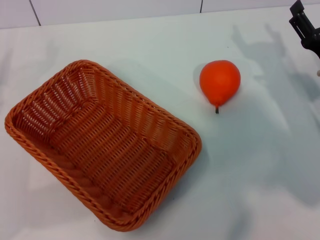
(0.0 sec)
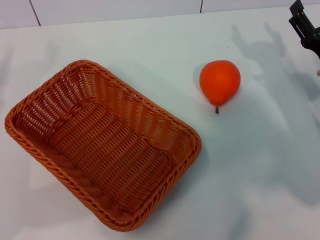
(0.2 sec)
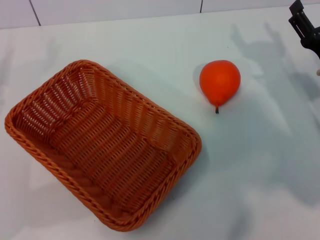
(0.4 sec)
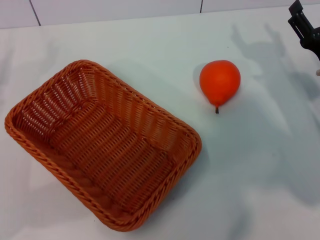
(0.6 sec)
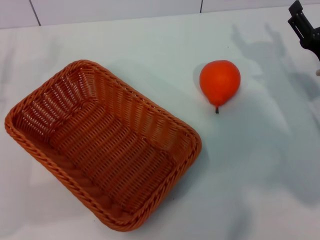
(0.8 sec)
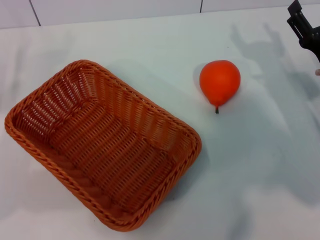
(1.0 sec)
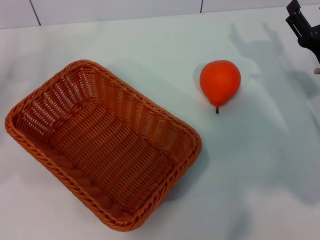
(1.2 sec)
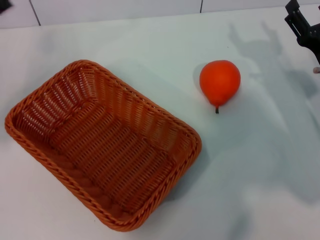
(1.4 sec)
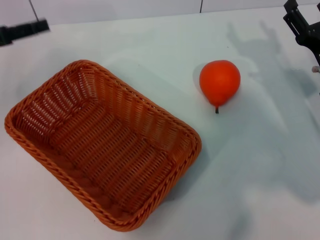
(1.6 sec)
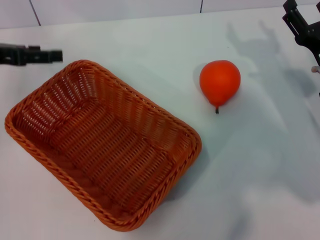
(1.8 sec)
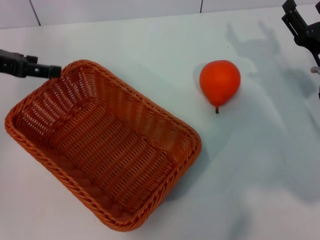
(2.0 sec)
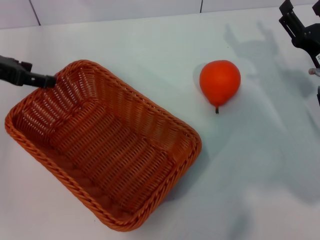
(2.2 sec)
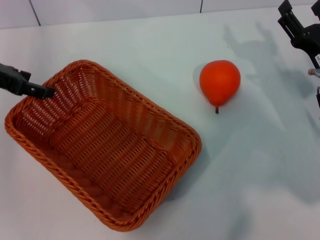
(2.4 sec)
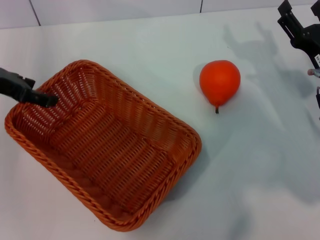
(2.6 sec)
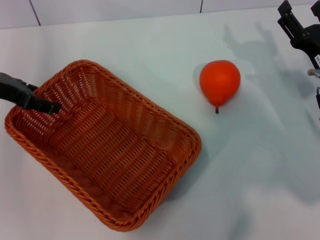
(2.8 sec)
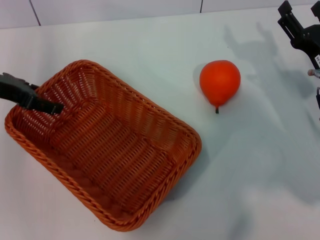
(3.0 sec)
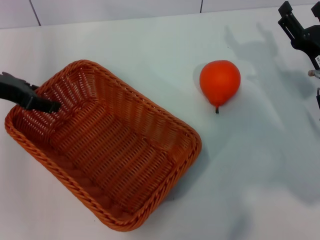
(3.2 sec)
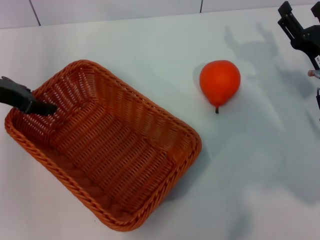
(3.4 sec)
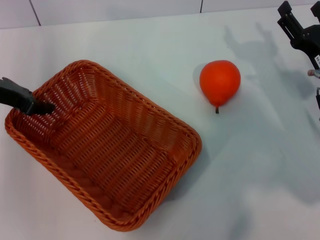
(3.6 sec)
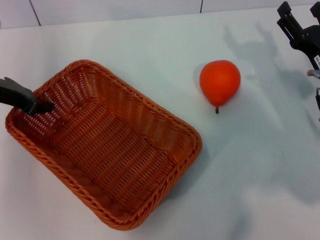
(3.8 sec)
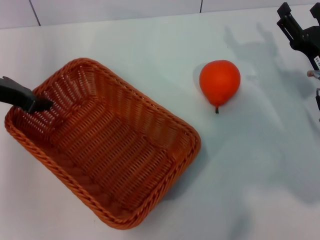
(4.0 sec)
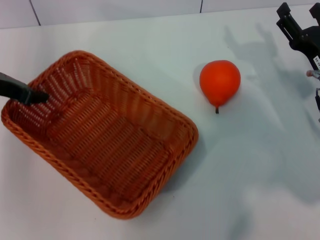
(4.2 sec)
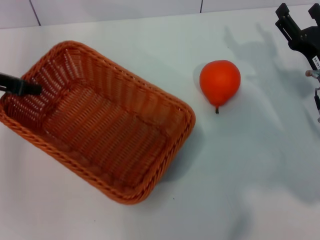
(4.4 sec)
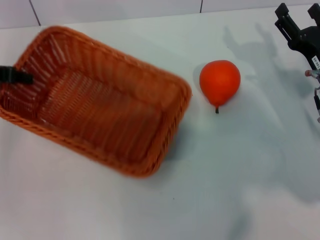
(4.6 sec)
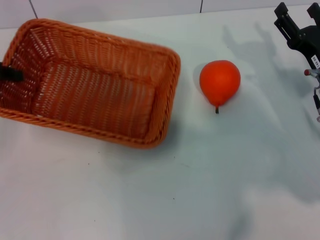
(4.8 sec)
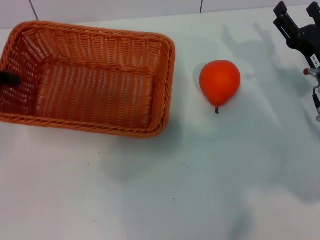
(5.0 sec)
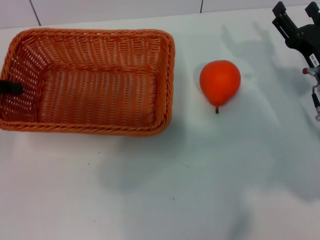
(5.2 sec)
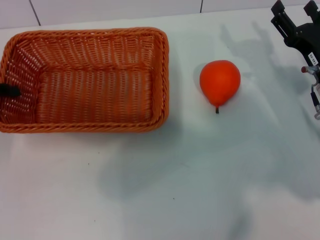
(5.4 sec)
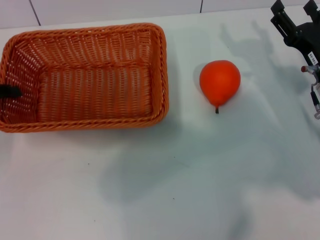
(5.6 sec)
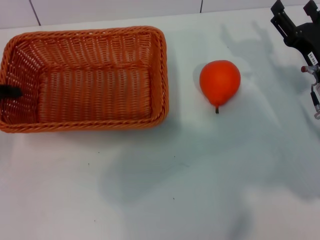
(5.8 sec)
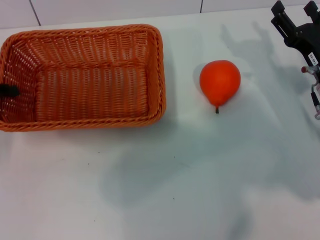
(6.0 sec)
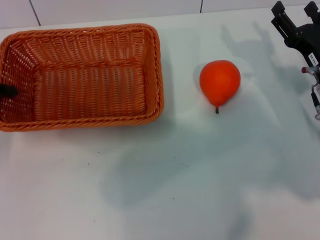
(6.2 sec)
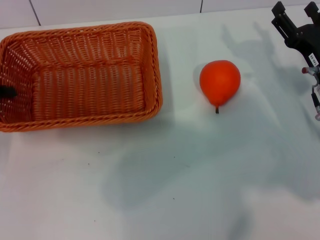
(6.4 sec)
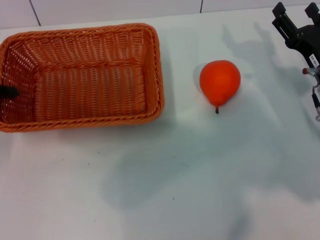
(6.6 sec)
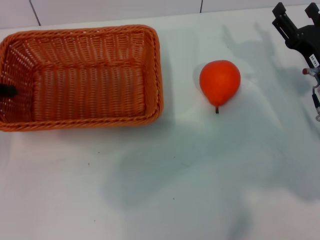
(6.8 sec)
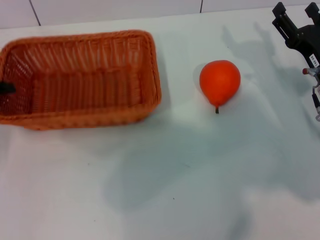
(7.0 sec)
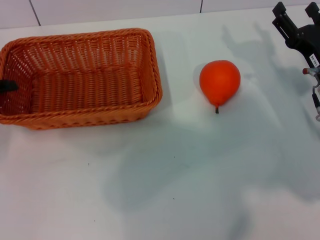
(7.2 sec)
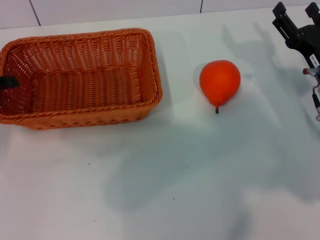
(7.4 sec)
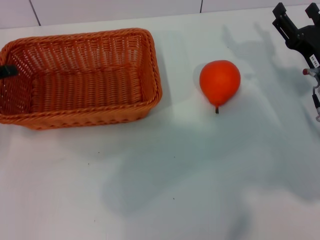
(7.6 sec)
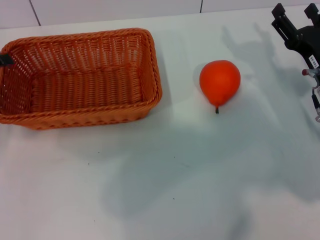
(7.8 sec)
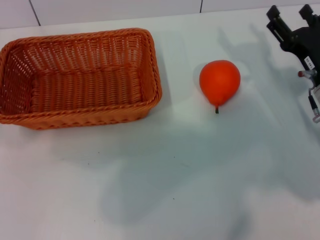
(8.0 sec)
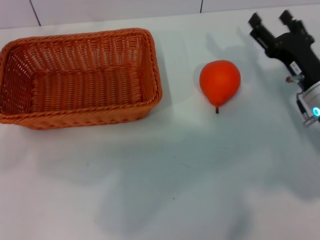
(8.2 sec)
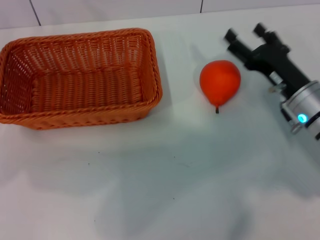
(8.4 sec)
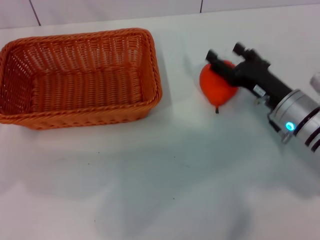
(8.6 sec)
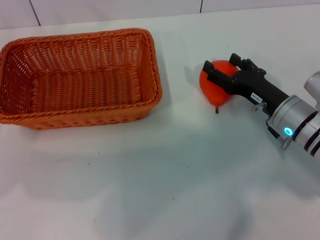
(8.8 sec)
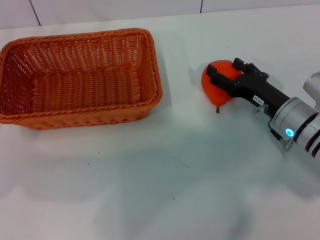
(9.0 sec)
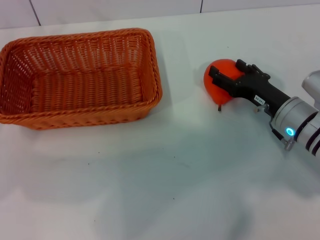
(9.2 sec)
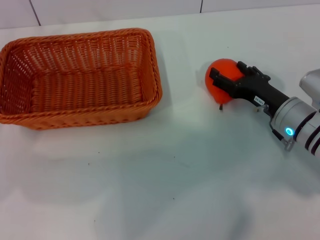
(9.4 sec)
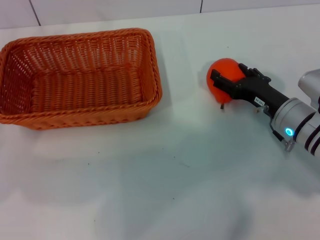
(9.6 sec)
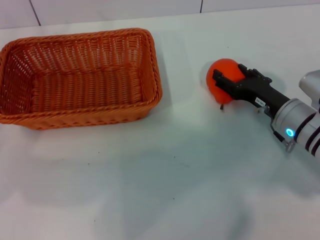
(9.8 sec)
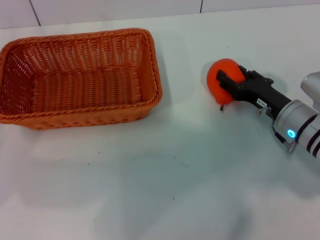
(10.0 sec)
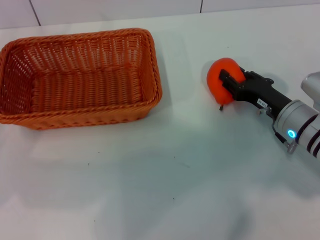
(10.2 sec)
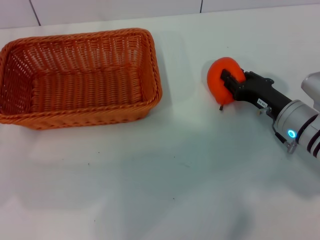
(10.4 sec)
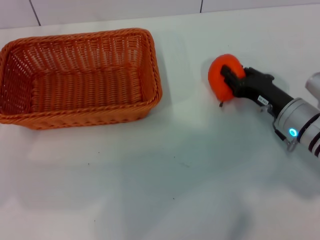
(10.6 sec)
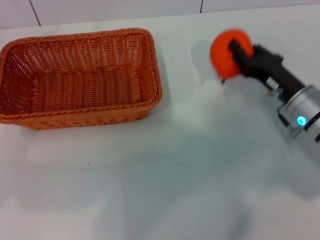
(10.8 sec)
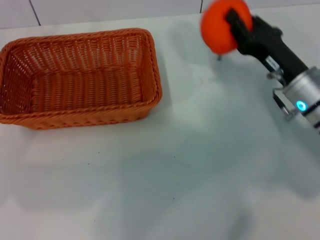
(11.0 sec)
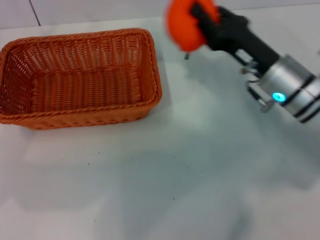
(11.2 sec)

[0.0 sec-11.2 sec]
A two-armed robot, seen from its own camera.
Task of the whole recording: the left gripper pick up the yellow basket and place it horizontally in the middle of the table, the right gripper pick up the orange and place it into the yellow basket.
Step, 0.0 sec to 4.2 sec: Pick up the light basket with the left gripper.
Step, 4.4 sec to 7.4 sec: Place the light basket in the center of view with the left gripper.
Step, 7.6 sec to 10.6 sec: Pick up the orange with the right gripper.
0.0 sec to 1.6 sec: The left gripper shifts some 15 cm upward and forward.
3.2 sec to 4.8 sec: The left gripper travels to the left by roughly 5 cm, and closes up.
4.8 sec to 6.4 sec: The left gripper goes some 5 cm downward.
6.4 sec to 8.0 sec: The left gripper opens up.
8.0 sec to 9.6 sec: The right gripper changes place by roughly 5 cm.
9.6 sec to 11.2 sec: The right gripper heads upward, covering roughly 5 cm, and closes up.

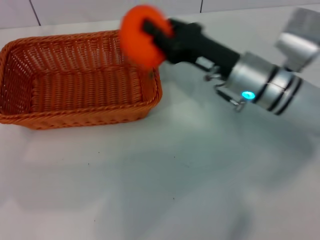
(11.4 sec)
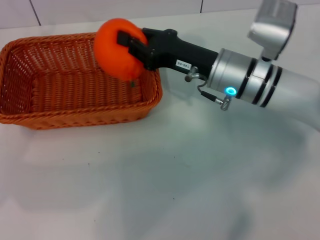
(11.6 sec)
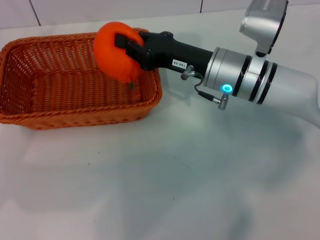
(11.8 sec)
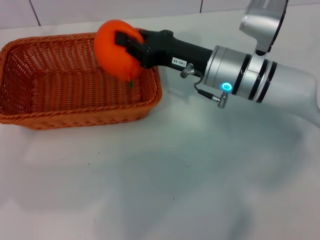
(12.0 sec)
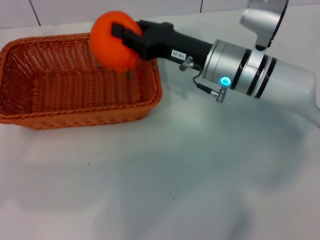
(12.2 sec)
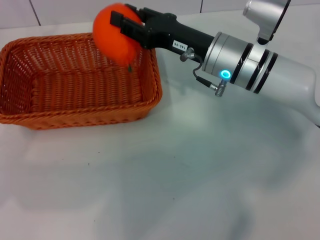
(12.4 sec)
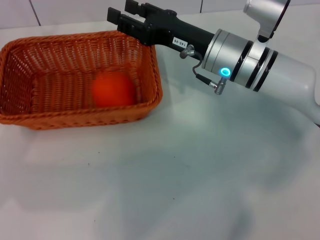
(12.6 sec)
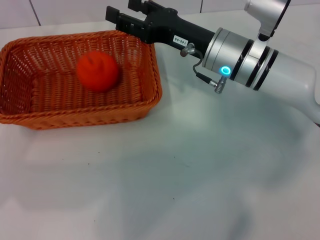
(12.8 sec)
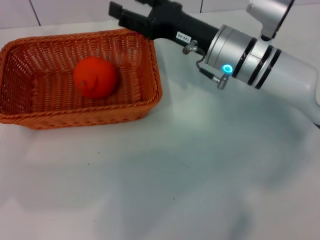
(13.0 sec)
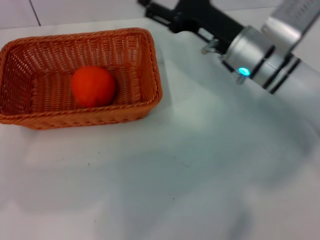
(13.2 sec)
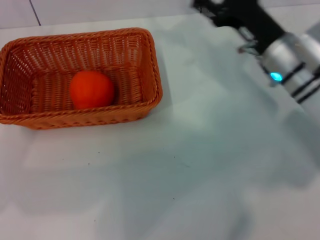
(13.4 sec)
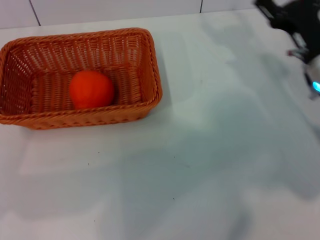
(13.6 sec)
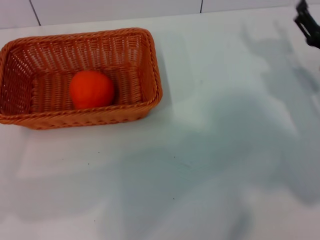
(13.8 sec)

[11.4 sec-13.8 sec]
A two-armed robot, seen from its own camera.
Task of the whole recording: the left gripper pick up the yellow basket and place it horizontally in the middle of the table, the right gripper pick up the orange and place it into the yellow basket.
Step, 11.4 sec to 12.6 sec: Place the orange into the light basket with the right gripper.
11.4 sec to 12.6 sec: The grippers move only a little.
12.6 sec to 13.8 sec: The right gripper travels to the right by about 15 cm, and opens.
